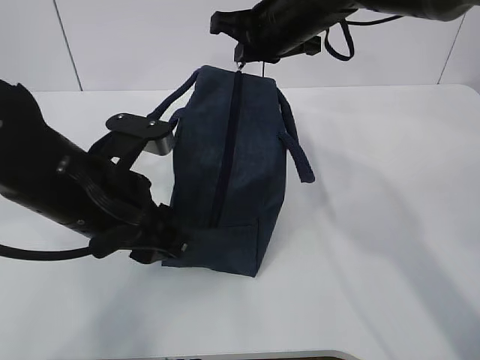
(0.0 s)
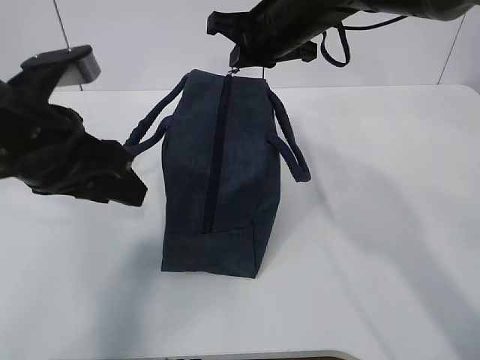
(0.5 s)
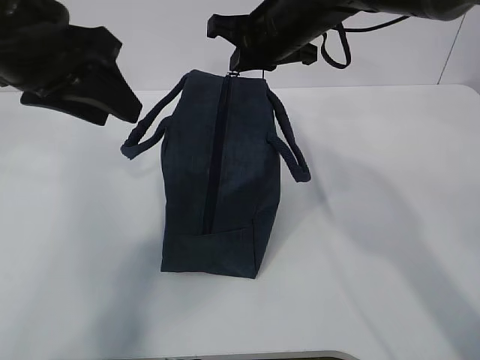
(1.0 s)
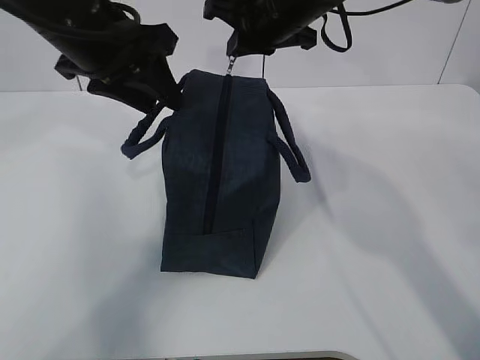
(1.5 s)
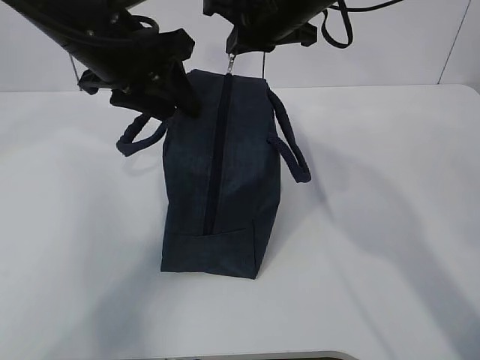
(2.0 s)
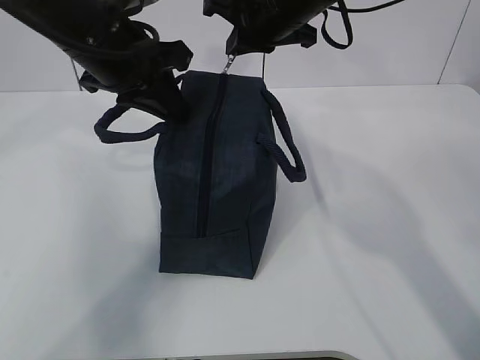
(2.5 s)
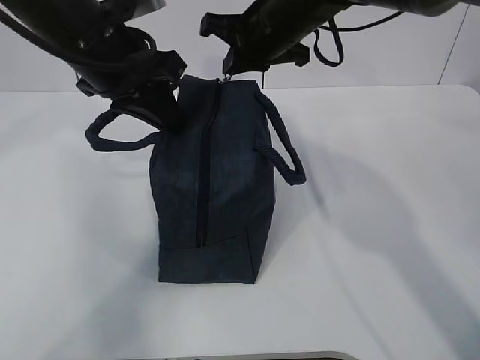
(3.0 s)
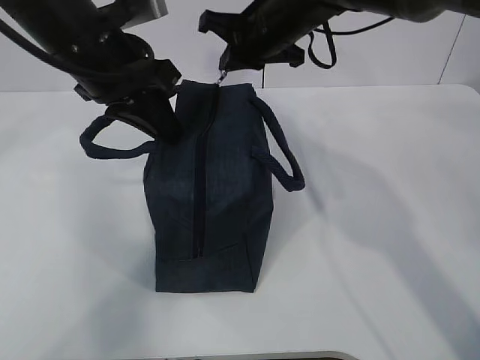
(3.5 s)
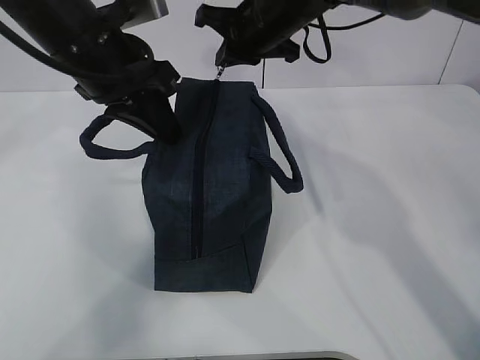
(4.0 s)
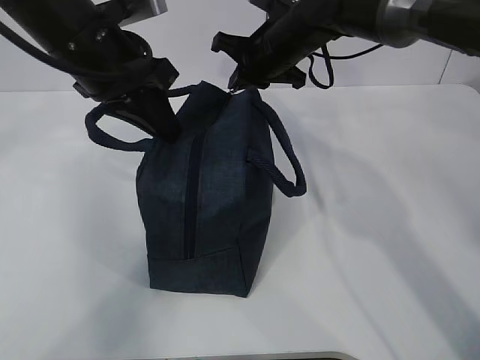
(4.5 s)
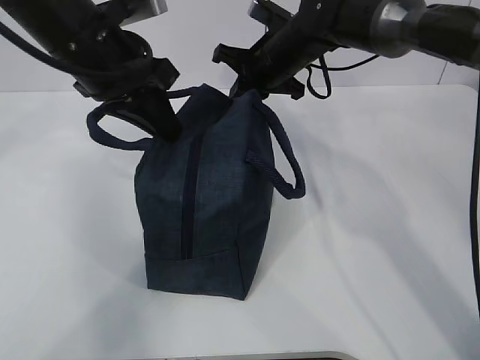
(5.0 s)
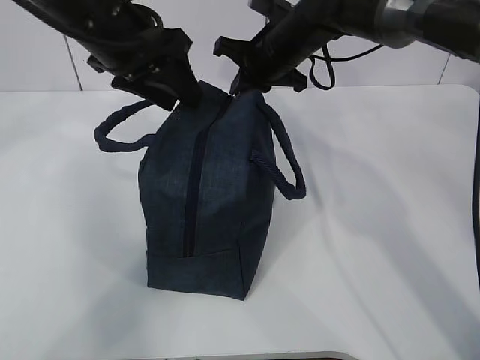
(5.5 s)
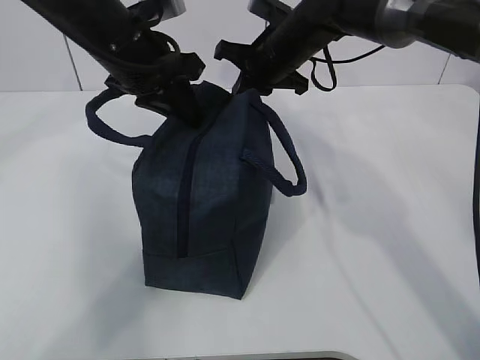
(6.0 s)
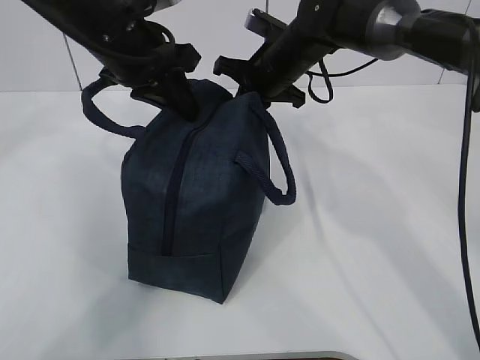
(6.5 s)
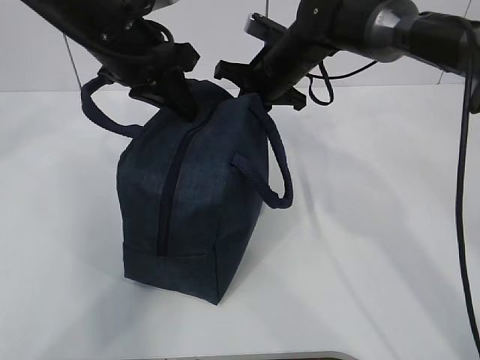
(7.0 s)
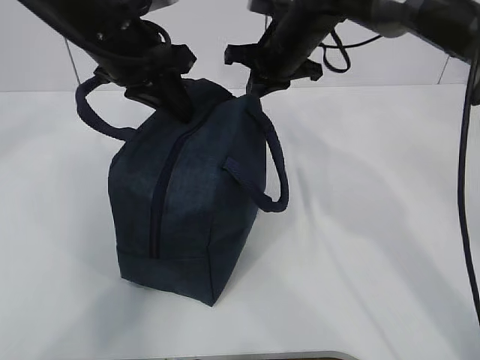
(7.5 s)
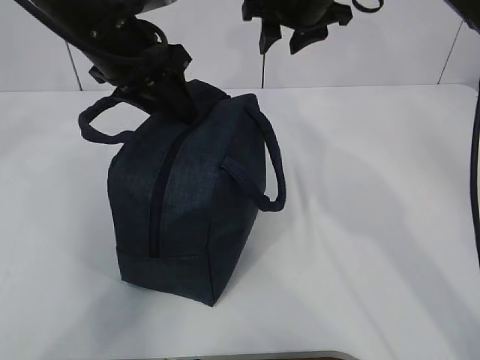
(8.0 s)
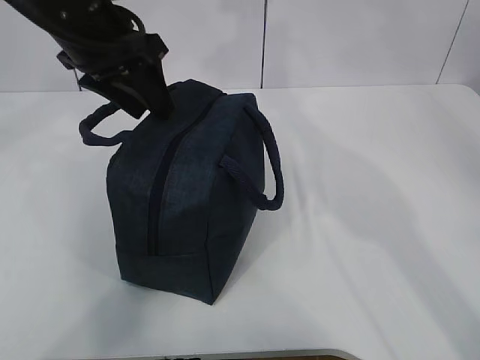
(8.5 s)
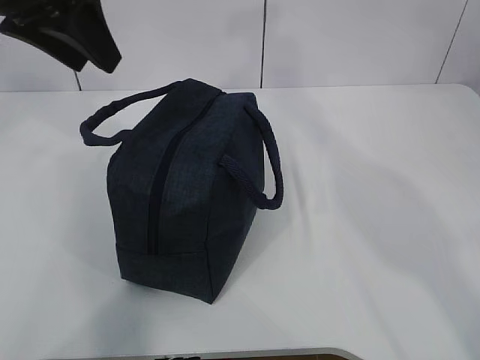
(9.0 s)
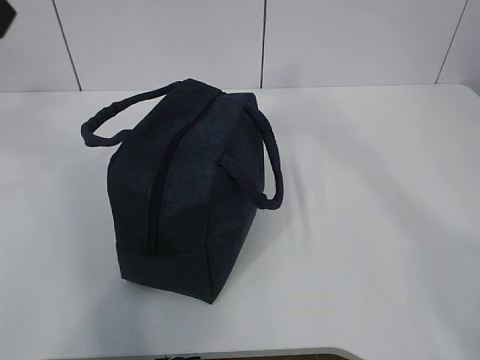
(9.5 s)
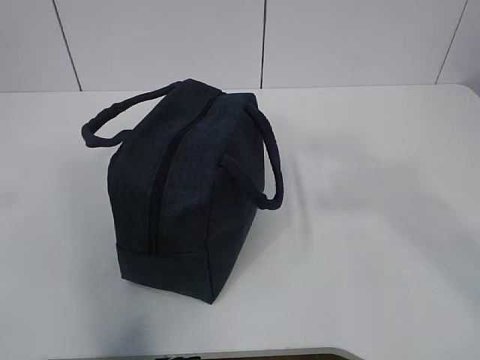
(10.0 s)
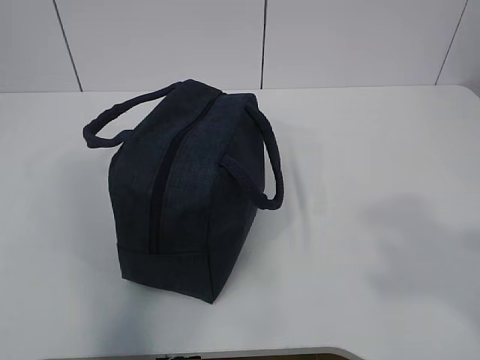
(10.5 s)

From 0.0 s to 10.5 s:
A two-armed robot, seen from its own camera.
From 0.0 s to 2.0 s: The left gripper is displaced forward and upward by about 15 cm.
From 2.0 s to 4.0 s: The left gripper closes its fingers.
From 4.0 s to 6.5 s: The left gripper opens, then closes once more, while the right gripper moves downward, roughly 5 cm.
From 6.5 s to 8.5 s: The right gripper shifts roughly 20 cm upward, and opens its fingers. The left gripper opens up.
From 8.5 s to 10.5 s: The left gripper heads backward and to the left, covering roughly 40 cm, while the right gripper heads backward and to the right, covering approximately 50 cm.

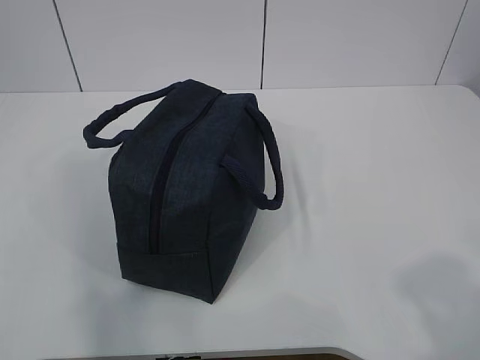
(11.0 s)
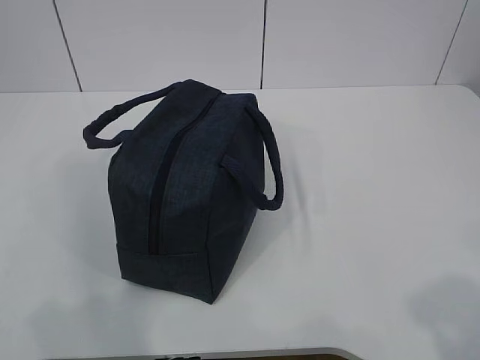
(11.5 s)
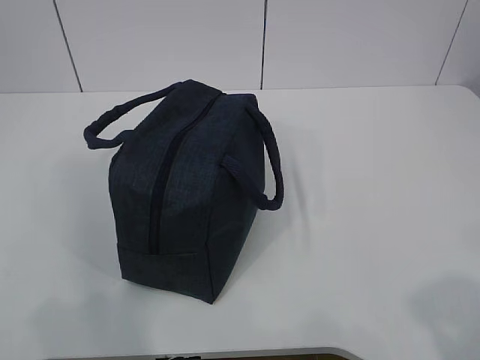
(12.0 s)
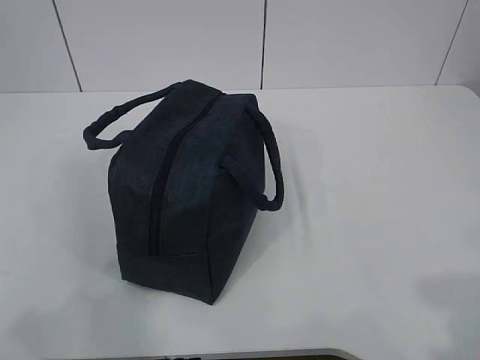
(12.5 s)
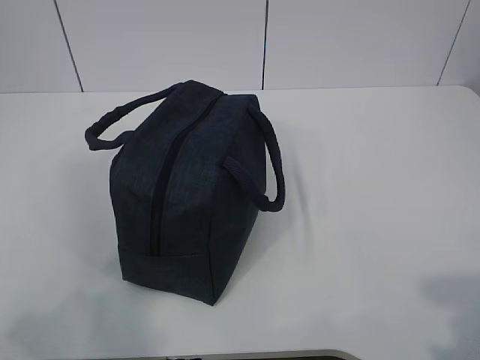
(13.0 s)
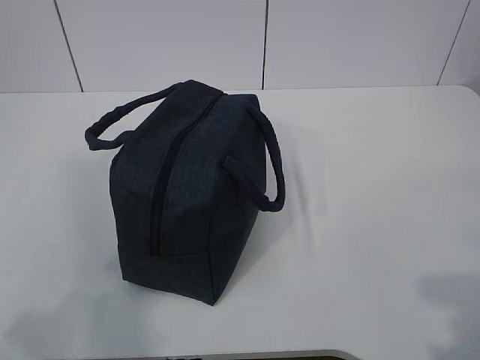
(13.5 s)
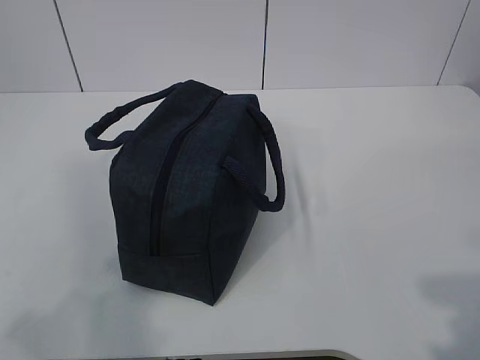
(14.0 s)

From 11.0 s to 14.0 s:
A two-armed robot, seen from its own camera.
From 11.0 s to 12.5 s: The left gripper shifts roughly 5 cm downward.
From 12.5 s to 14.0 s: The two grippers keep their place.
